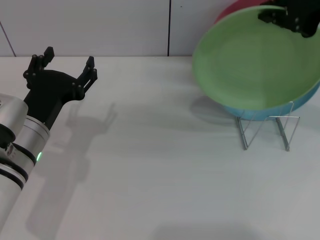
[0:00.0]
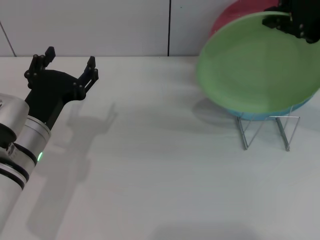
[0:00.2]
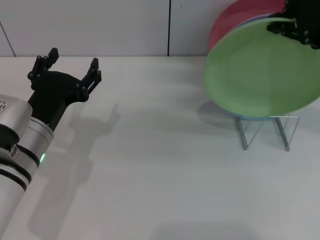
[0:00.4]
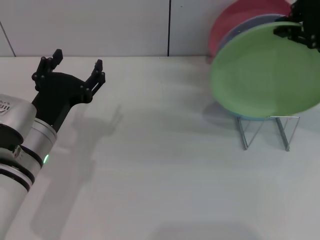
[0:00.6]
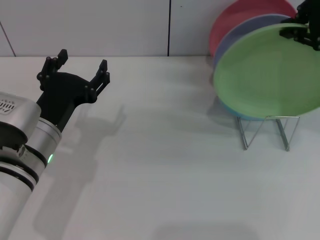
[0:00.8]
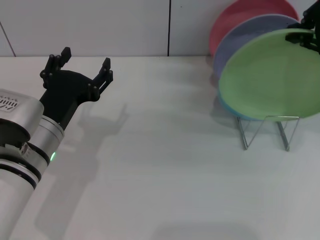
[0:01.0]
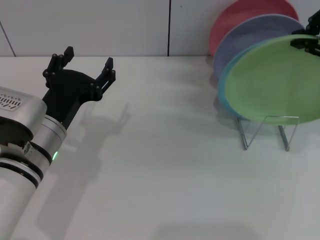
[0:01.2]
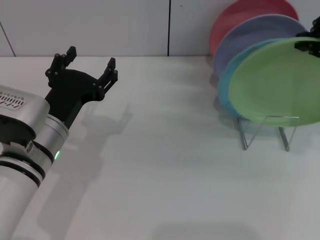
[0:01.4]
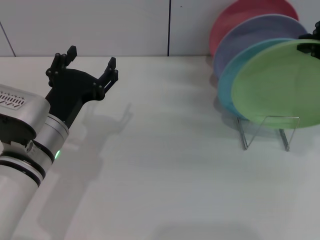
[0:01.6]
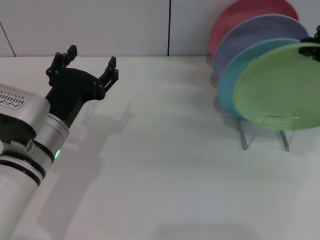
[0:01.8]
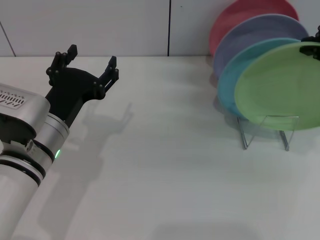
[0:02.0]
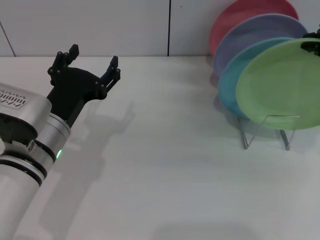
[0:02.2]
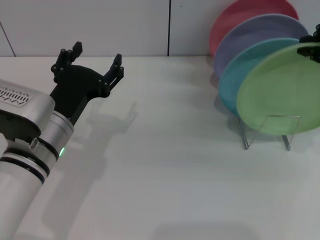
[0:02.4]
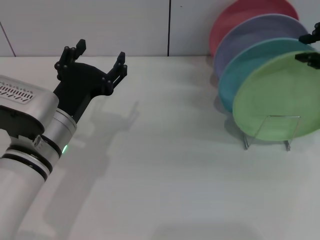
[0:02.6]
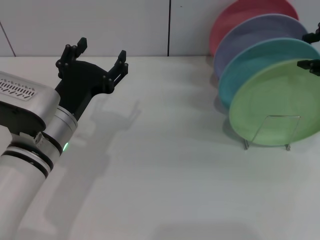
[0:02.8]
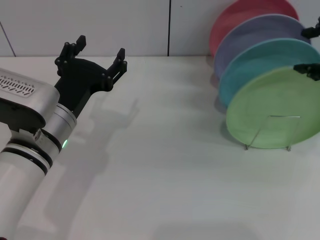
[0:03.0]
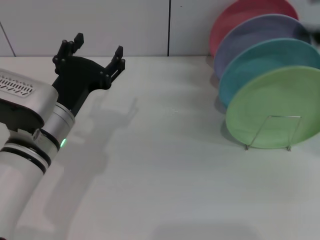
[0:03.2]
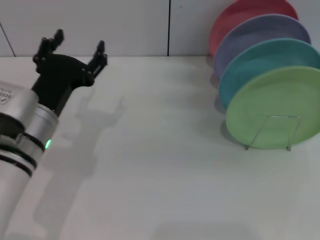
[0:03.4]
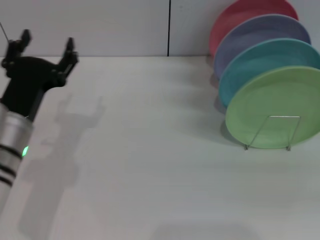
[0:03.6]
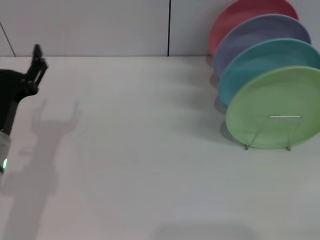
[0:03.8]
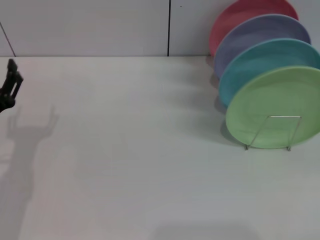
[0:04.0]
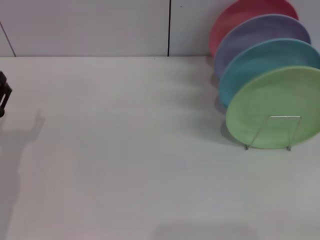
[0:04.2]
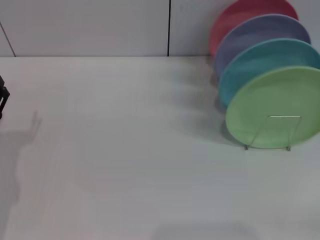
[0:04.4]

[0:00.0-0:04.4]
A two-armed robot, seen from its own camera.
Task of the whole recording: Grip the plate with one hand, pass it to the other, then set it on the shelf.
Step, 0:00.0 to 0:03.2: Place the plate on the shelf with the right gripper.
0:00.0 to 0:01.4: The right gripper travels to the right by approximately 5 cm.
0:01.4 to 0:03.0: The right gripper opens up.
0:03.0 to 0:04.4: The right gripper moves downward, to the right and backward, about 30 cm, and opens, while the left gripper heads to the left and downward, covering about 15 cm.
